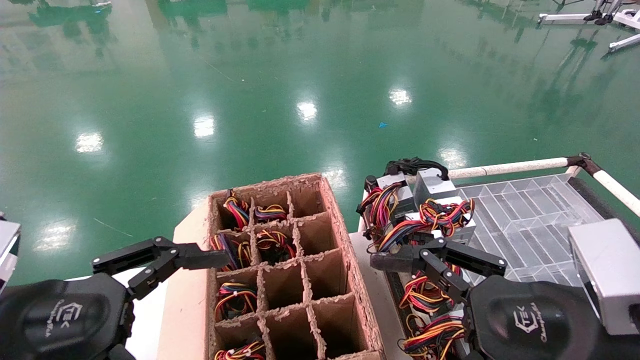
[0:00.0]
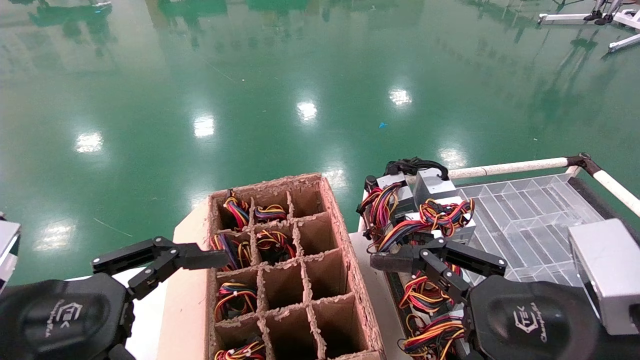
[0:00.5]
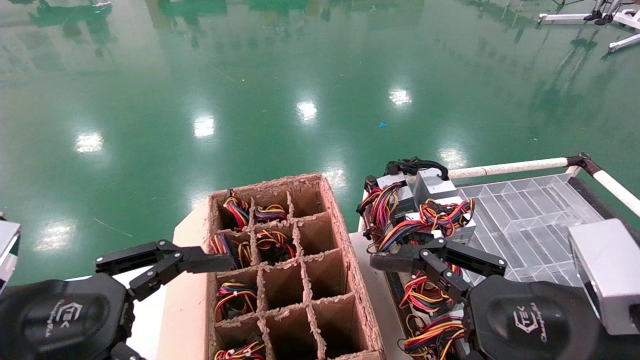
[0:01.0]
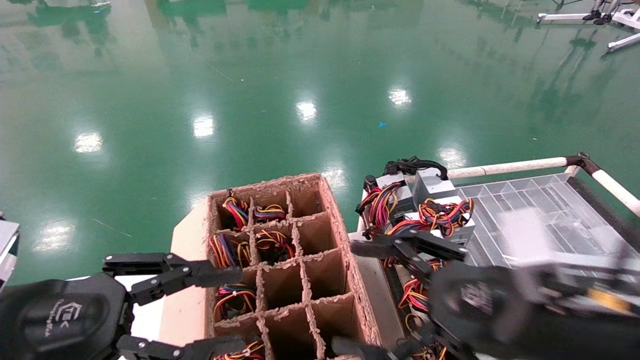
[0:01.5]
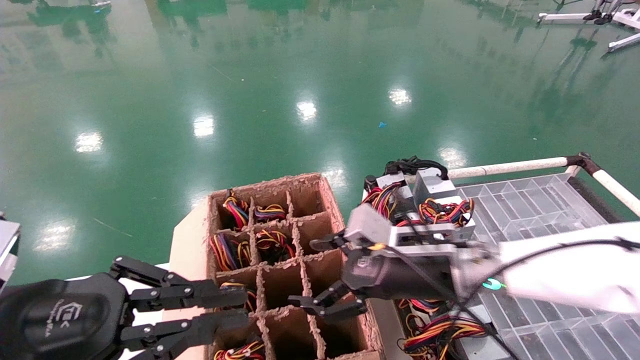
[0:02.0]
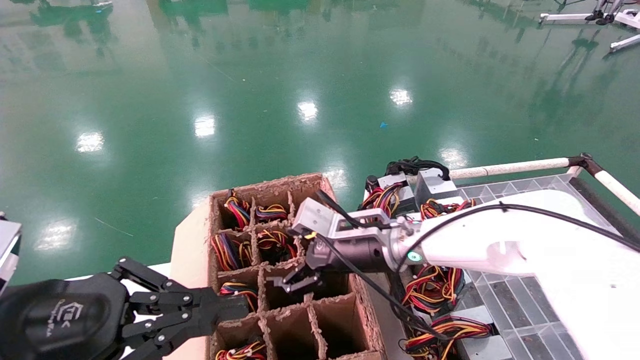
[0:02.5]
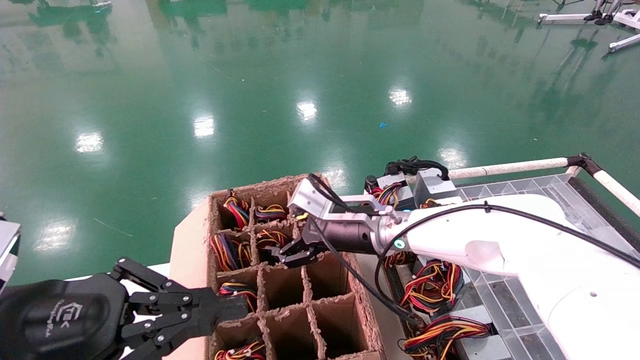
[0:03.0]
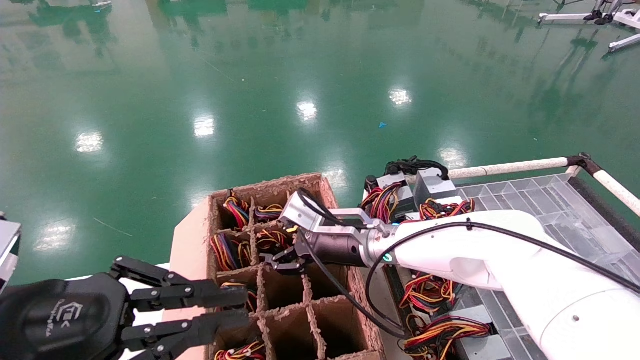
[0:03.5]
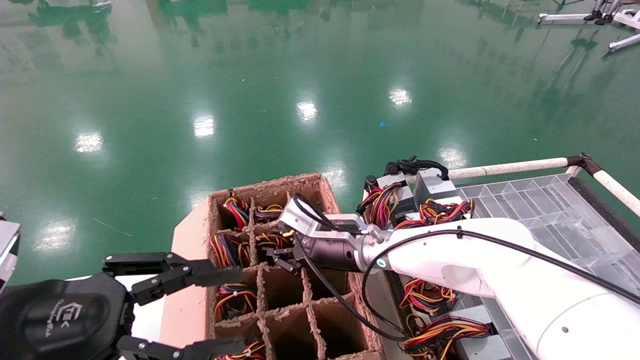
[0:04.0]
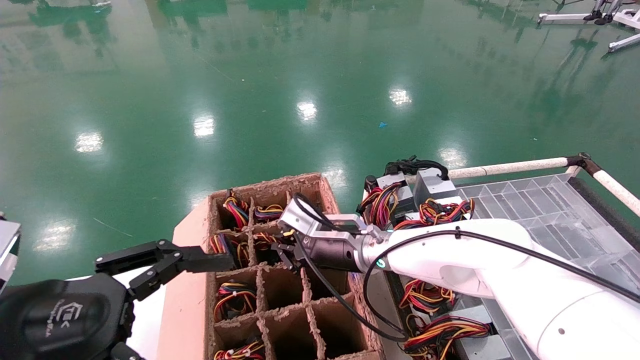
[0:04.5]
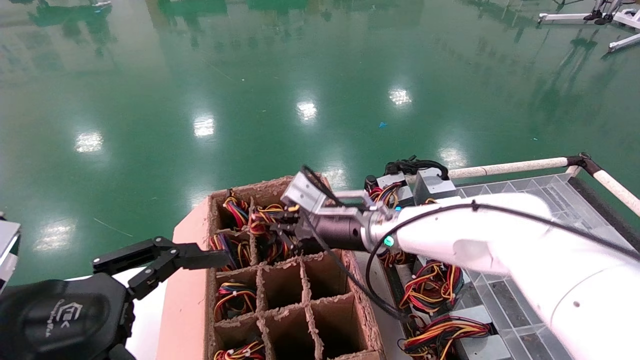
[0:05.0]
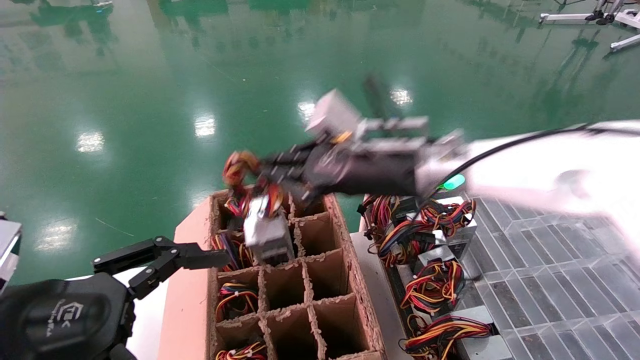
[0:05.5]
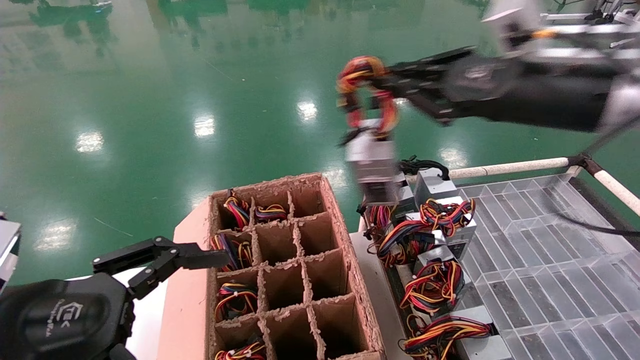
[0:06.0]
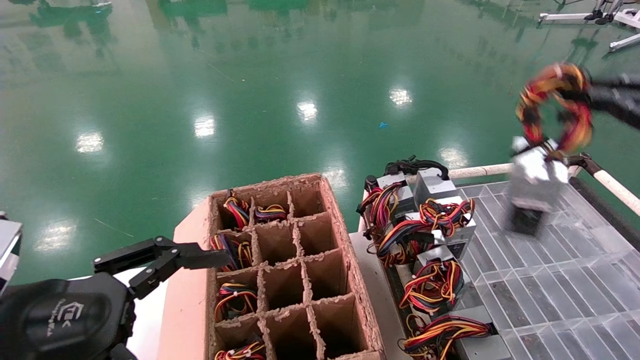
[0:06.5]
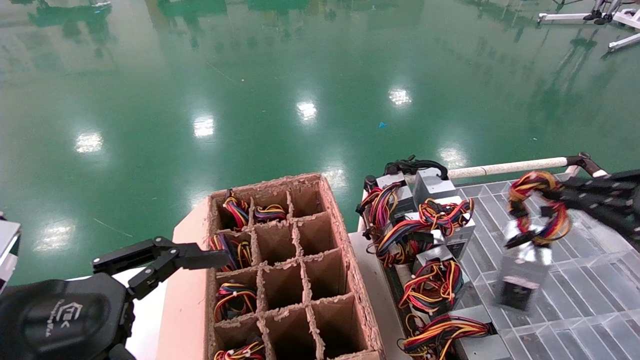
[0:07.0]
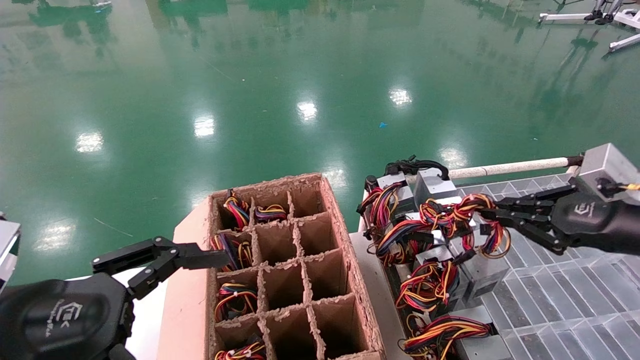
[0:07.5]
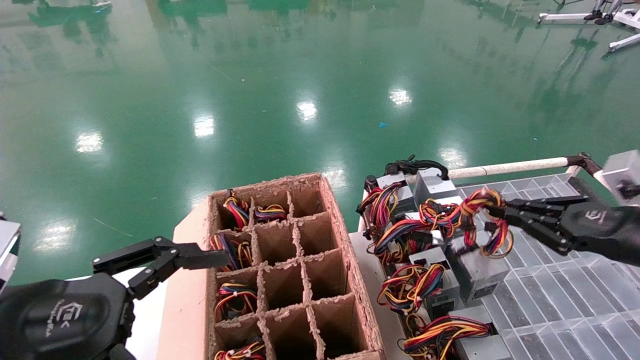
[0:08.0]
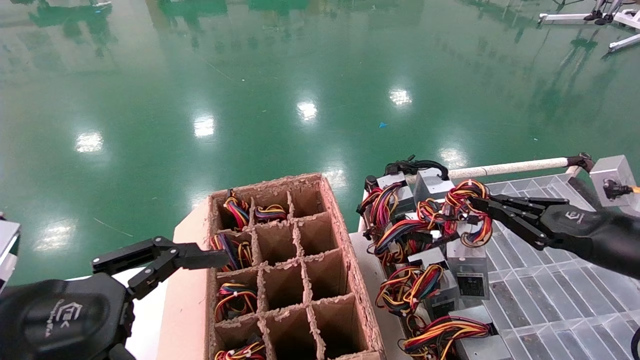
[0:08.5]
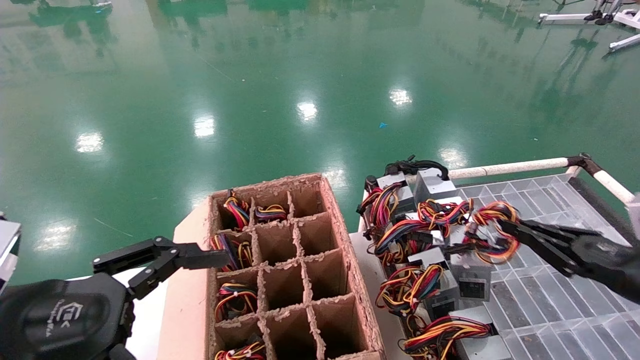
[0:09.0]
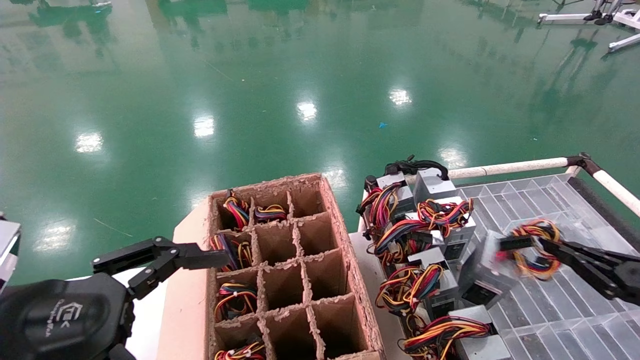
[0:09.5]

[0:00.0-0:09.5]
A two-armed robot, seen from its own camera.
Step, 0:02.5 to 0:04.5: Grab and lift the power supply from the large box.
0:00.0 to 0:02.0: The right gripper shifts approximately 20 cm forward and to the left, while the left gripper closes up.
0:02.0 to 0:04.0: The right gripper is displaced to the left and forward by some 15 cm, and closes its fingers.
0:04.0 to 0:05.5: The right gripper shifts roughly 15 cm upward, backward and to the right, and closes its fingers. Meanwhile the left gripper opens up.
0:05.5 to 0:07.5: The right gripper goes about 30 cm to the right.
0:07.5 to 0:09.5: The right gripper heads downward and to the right, covering about 15 cm.

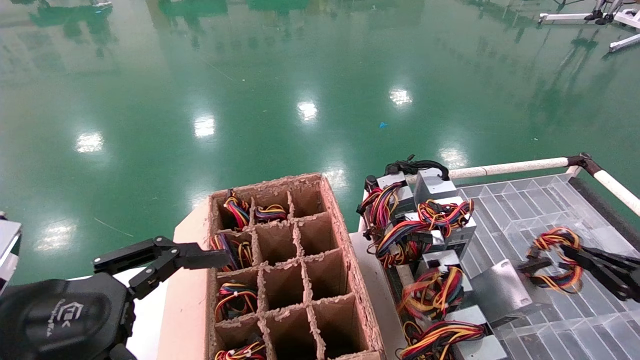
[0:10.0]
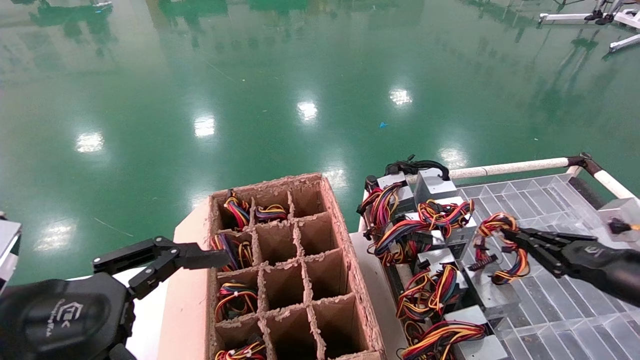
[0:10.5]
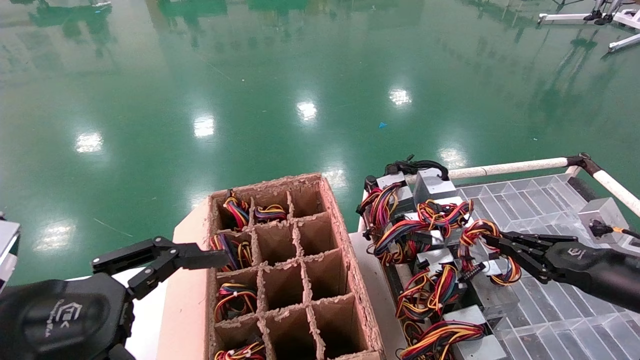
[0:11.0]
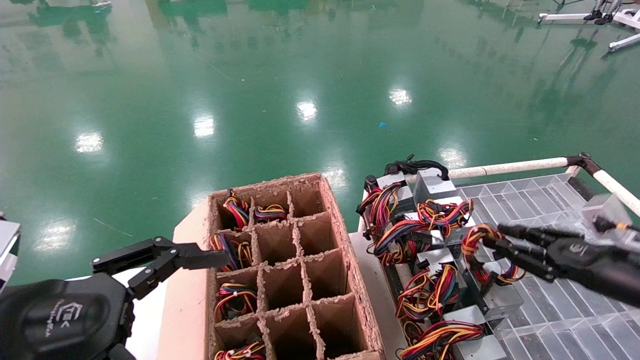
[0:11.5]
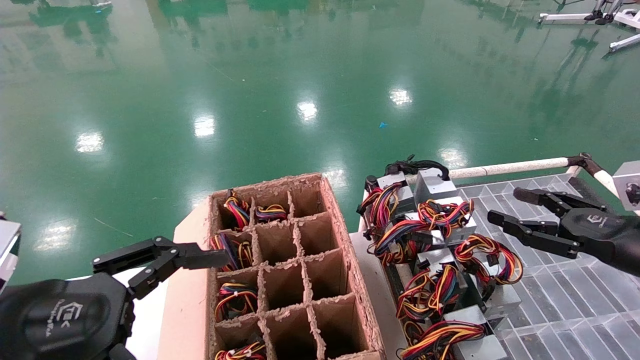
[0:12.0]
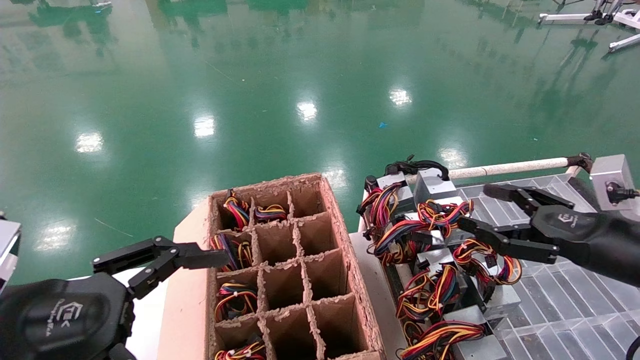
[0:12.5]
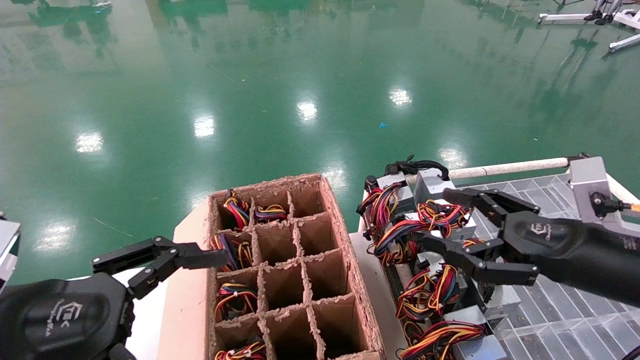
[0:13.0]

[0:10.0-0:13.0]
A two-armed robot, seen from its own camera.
0:10.0 to 0:11.5: The right gripper travels to the left by about 5 cm.
0:11.5 to 0:13.0: The right gripper heads to the left, covering approximately 10 cm, and opens.
